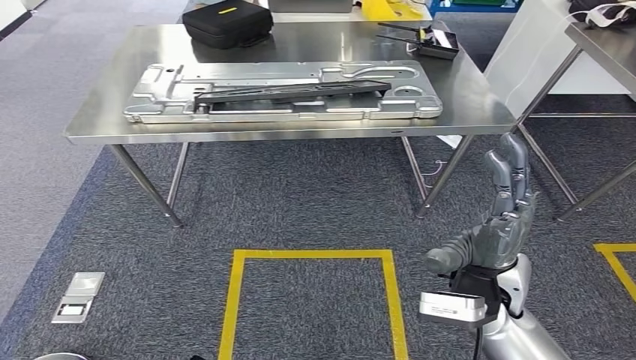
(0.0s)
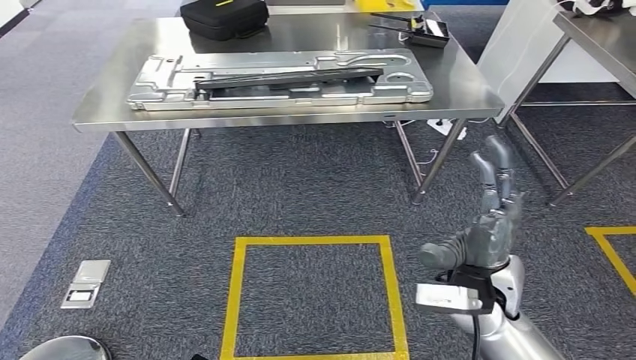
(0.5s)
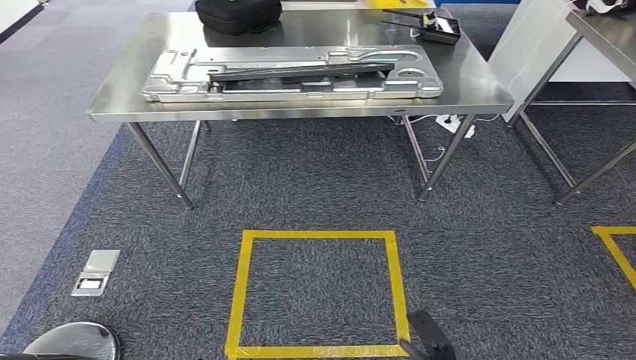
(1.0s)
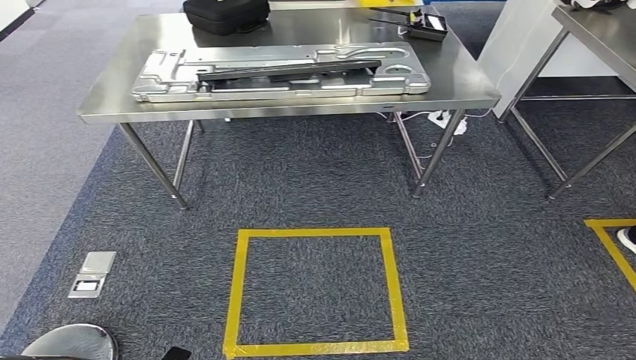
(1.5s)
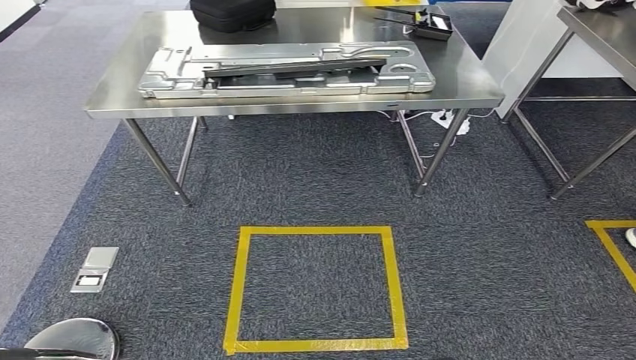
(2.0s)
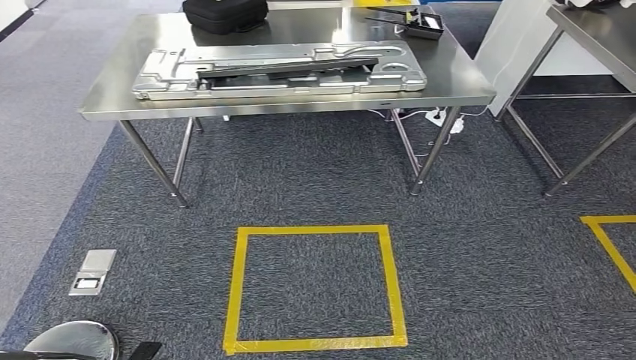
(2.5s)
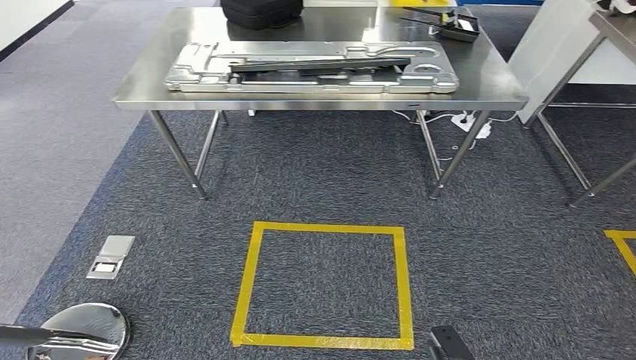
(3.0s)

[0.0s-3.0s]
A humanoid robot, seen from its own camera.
Step, 0.0s to 3.0s: Move to the initial position of the shelf.

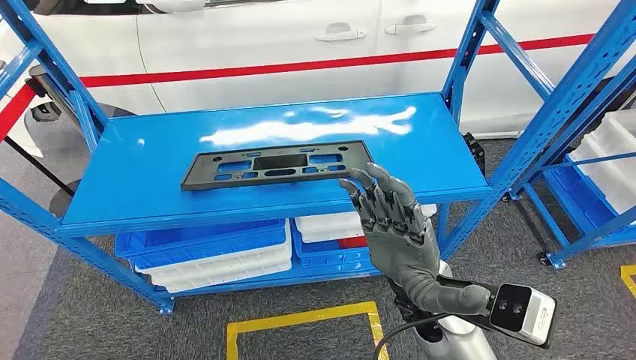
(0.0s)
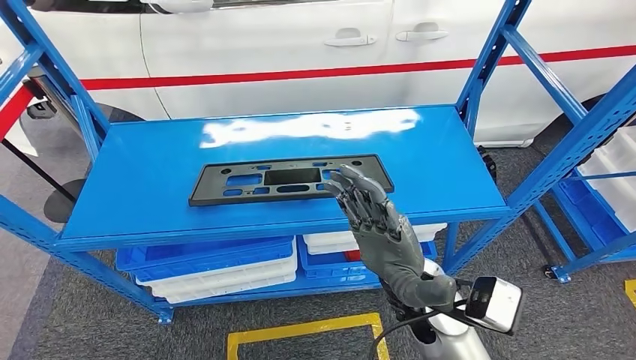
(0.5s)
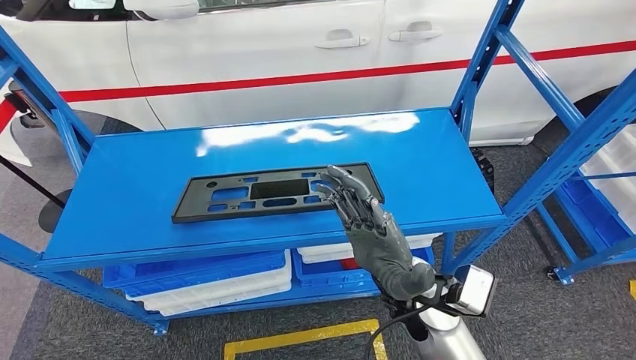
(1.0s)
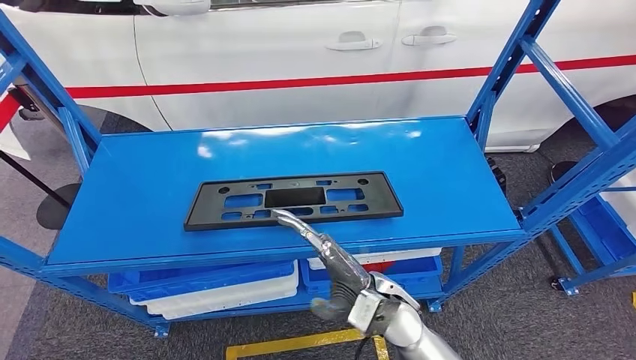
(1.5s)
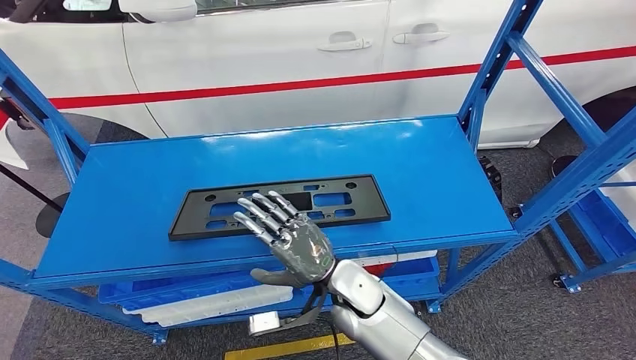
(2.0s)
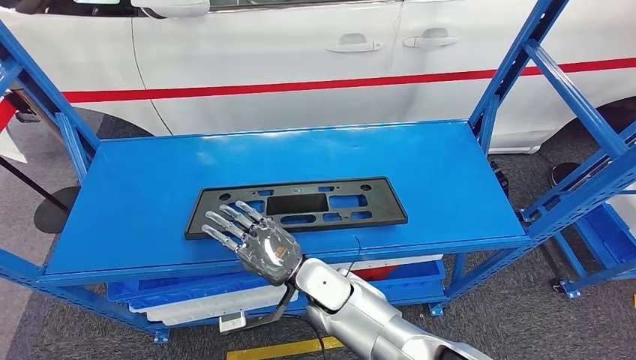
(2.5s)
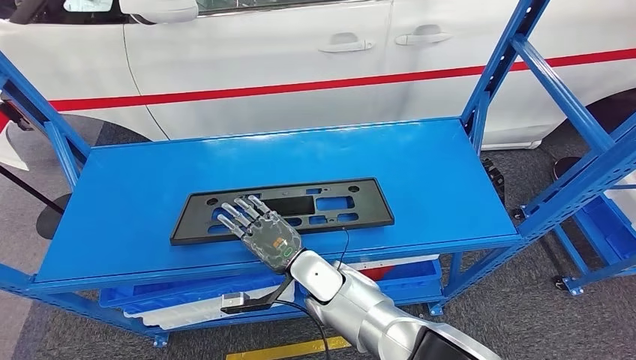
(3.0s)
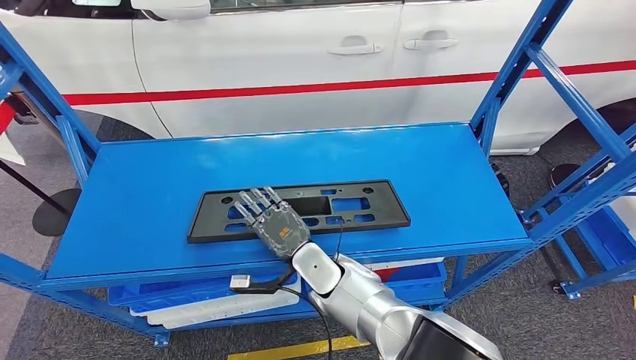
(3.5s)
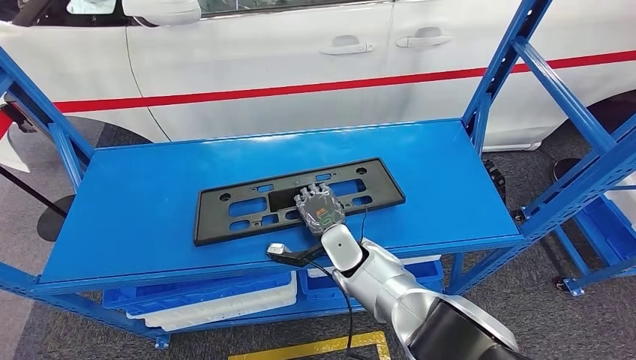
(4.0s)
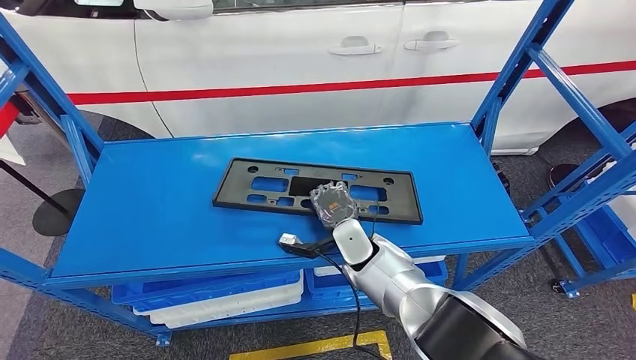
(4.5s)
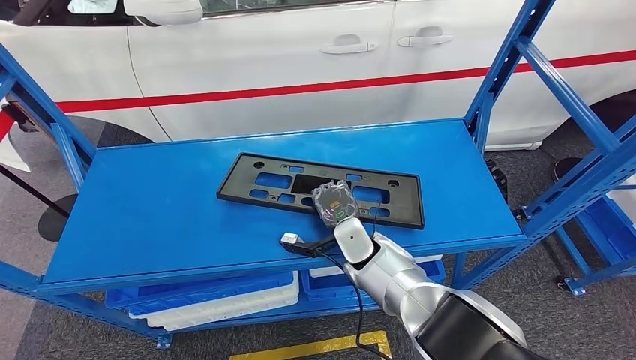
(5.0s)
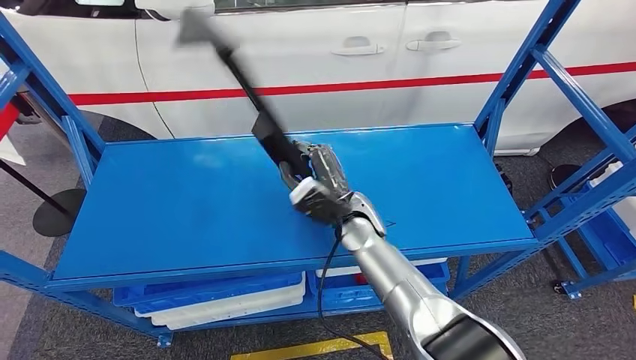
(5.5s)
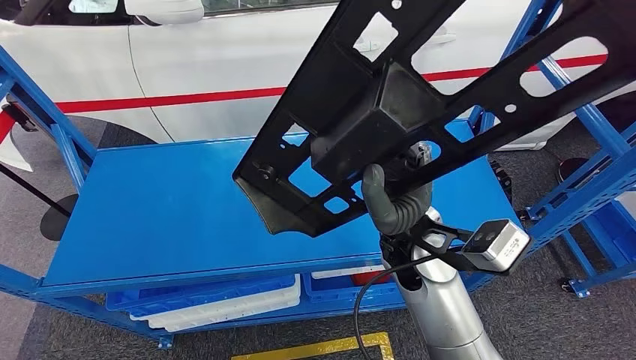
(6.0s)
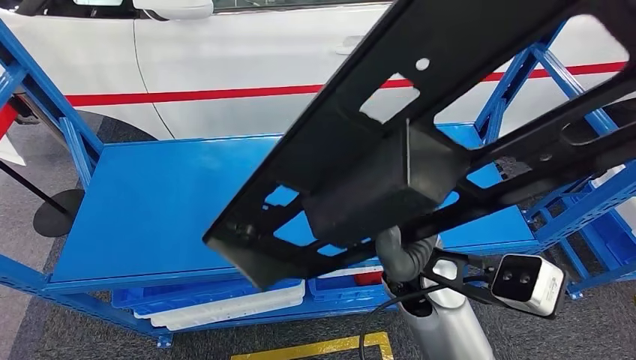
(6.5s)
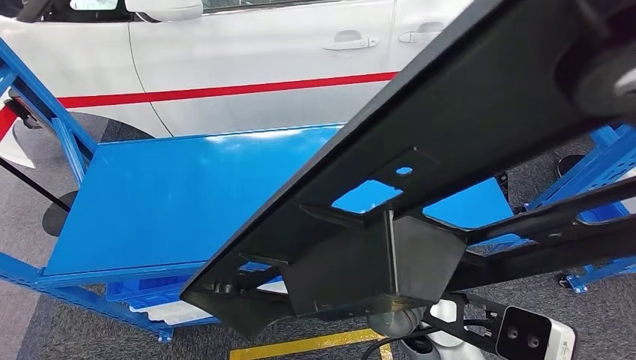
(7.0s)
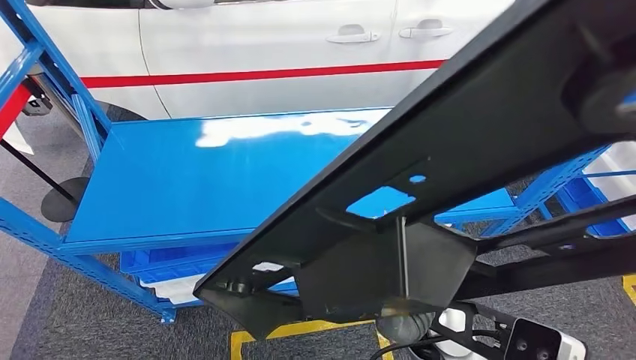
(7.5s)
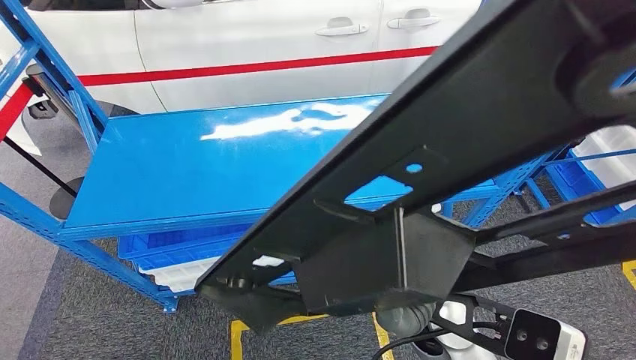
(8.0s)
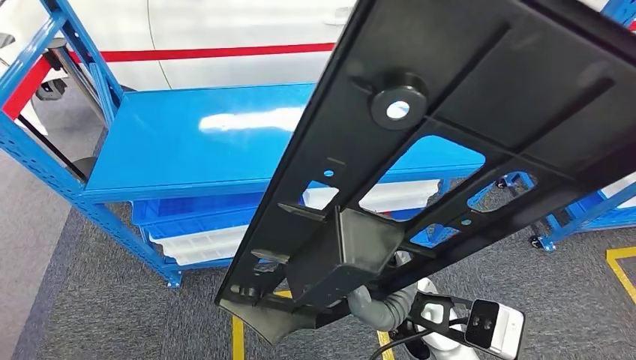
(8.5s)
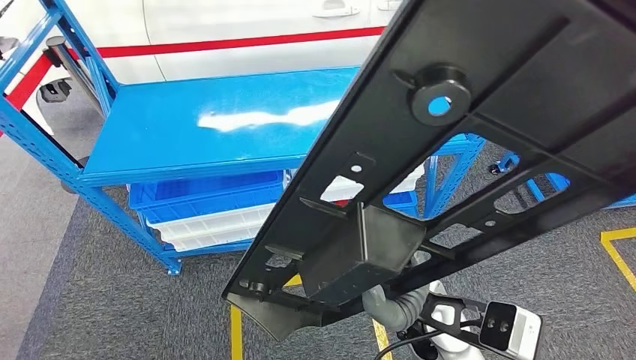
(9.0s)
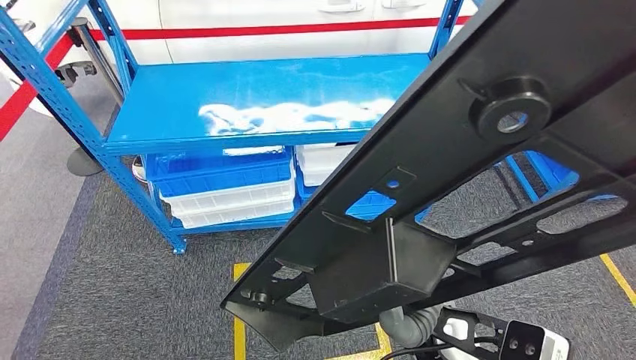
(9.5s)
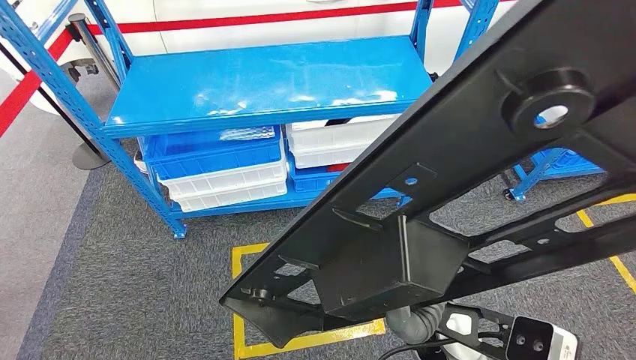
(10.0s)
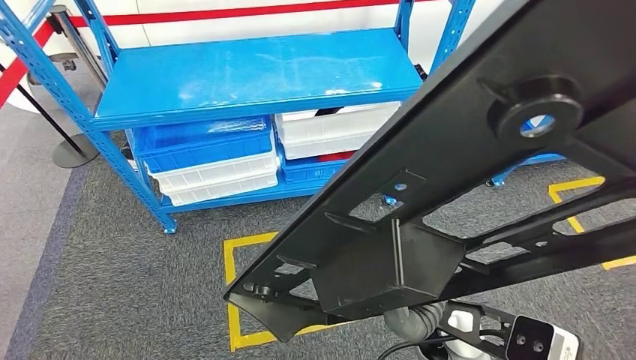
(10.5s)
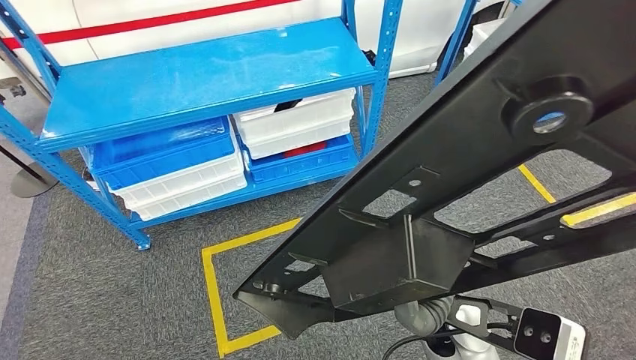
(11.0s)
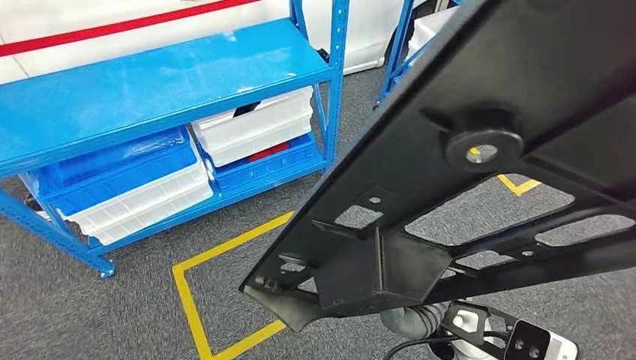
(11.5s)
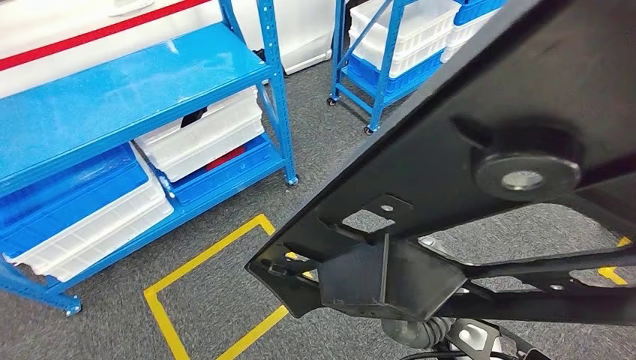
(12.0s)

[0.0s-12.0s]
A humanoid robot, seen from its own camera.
Step, 0.0s to 7.0s: Pick up the large material from the shelf.

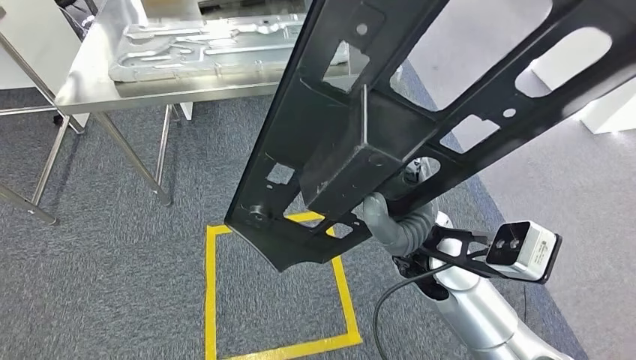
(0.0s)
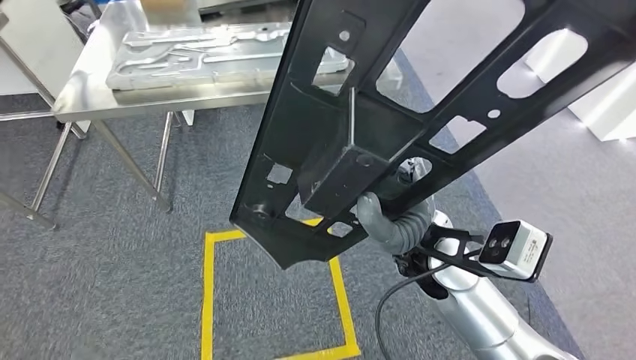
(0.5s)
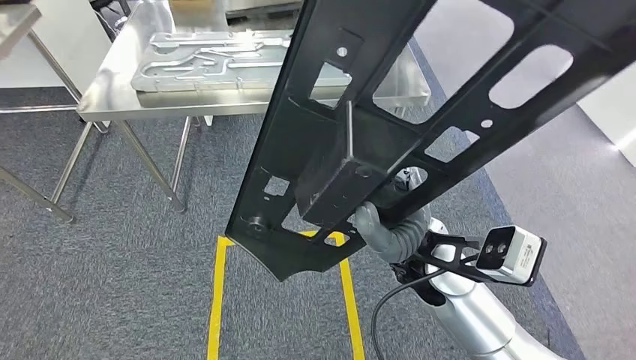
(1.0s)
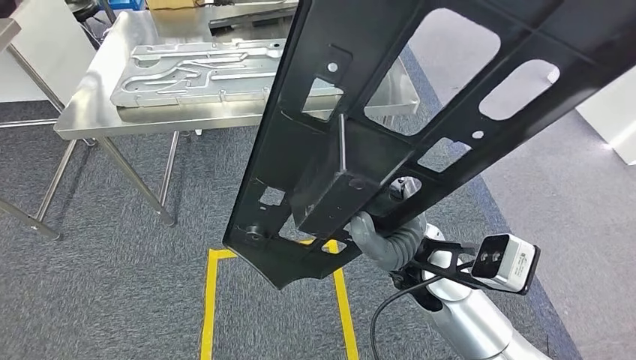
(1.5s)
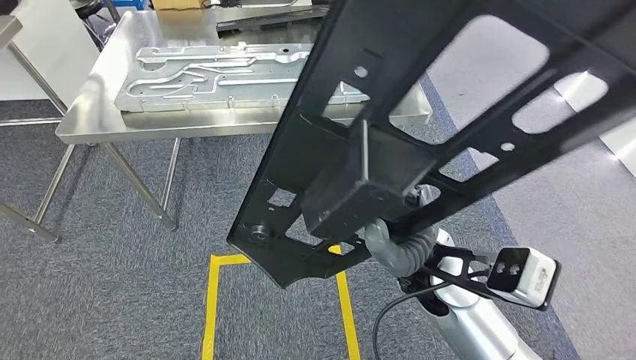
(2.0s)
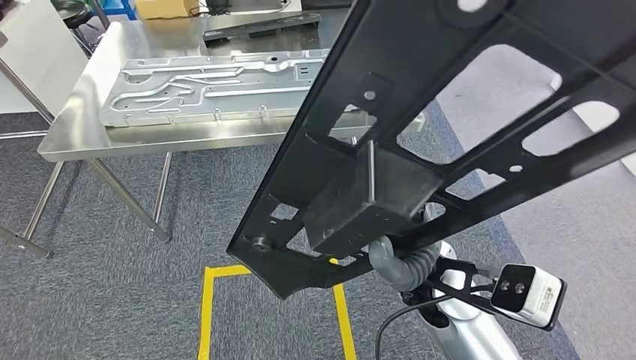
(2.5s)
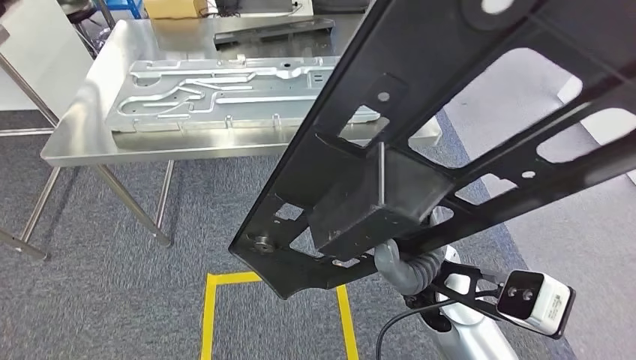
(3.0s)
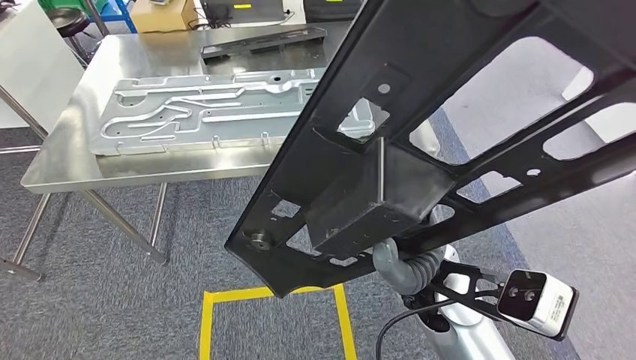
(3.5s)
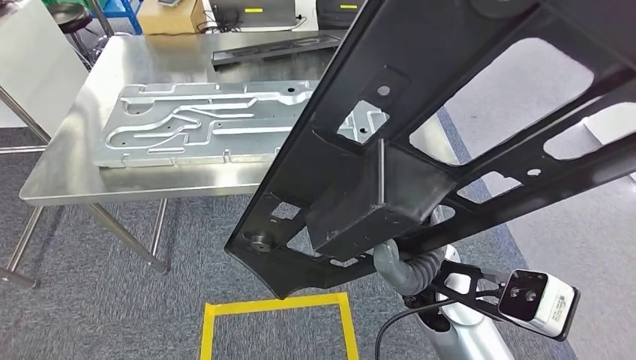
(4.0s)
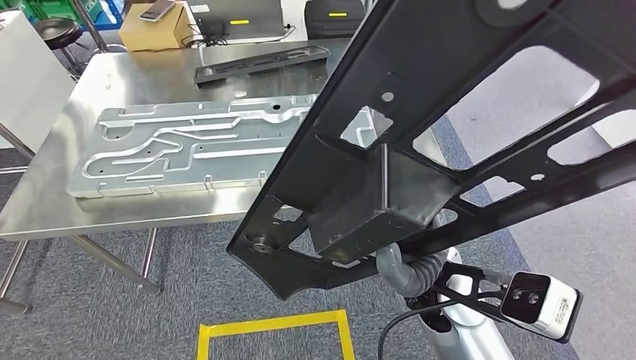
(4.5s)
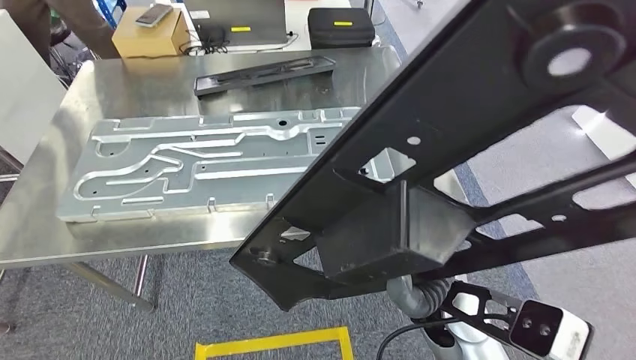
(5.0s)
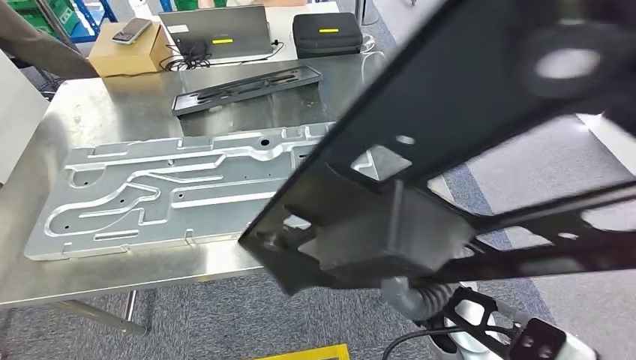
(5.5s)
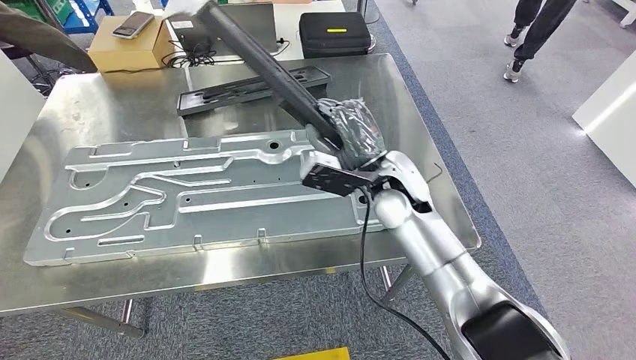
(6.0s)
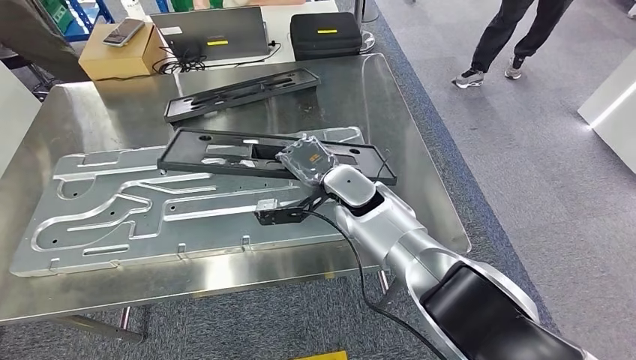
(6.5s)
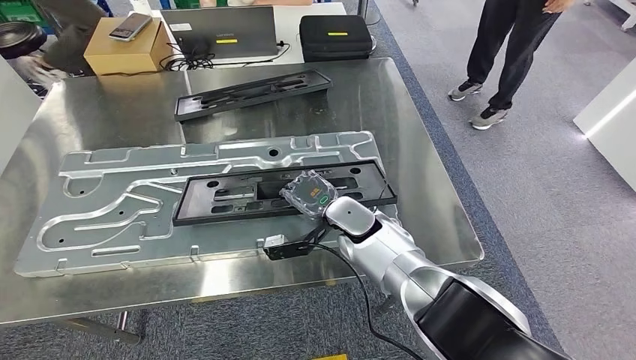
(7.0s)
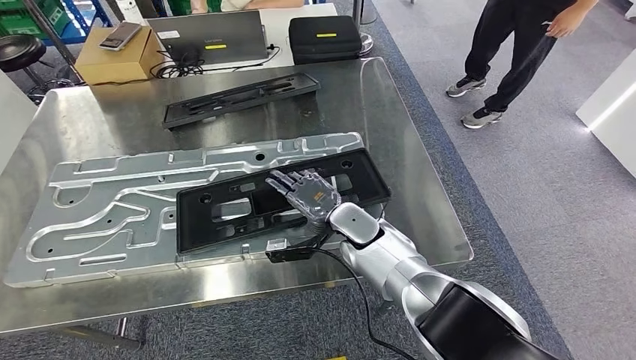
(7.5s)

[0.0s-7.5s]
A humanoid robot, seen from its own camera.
Step, 0.0s to 5.0s: Move the large material to the workbench.
